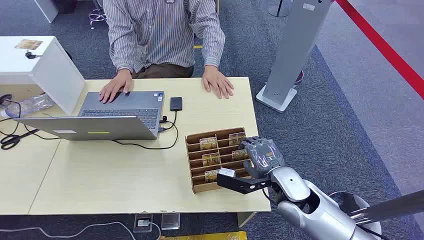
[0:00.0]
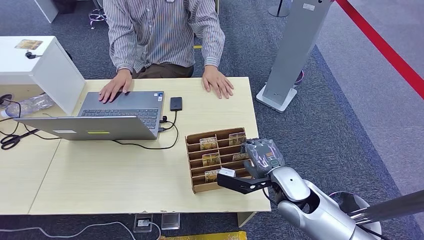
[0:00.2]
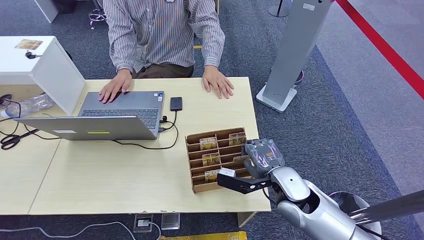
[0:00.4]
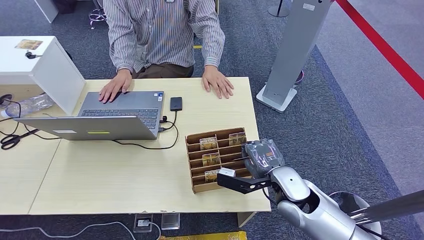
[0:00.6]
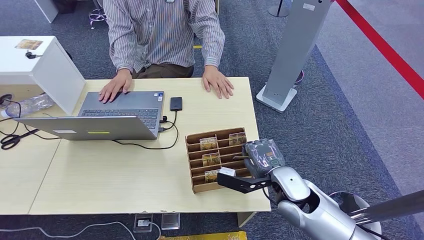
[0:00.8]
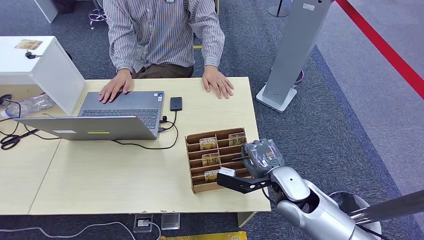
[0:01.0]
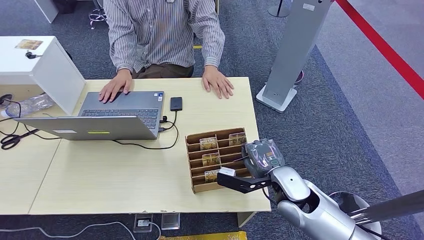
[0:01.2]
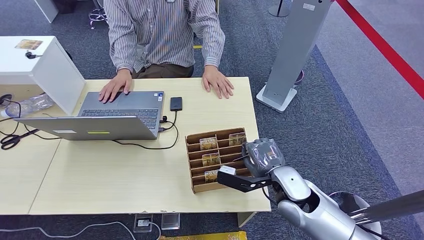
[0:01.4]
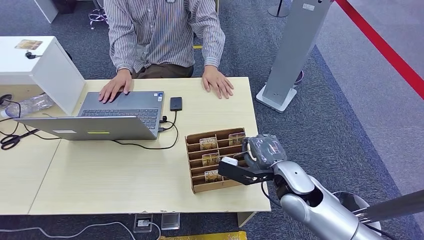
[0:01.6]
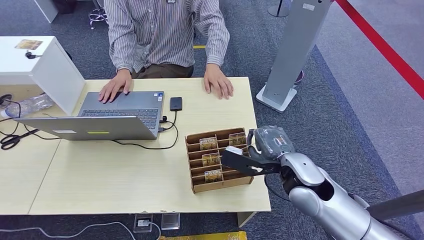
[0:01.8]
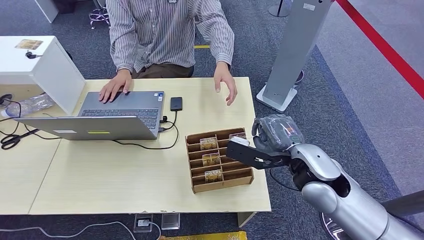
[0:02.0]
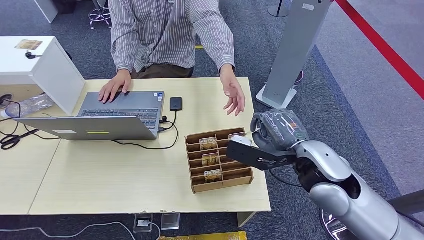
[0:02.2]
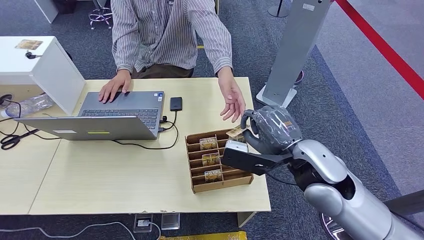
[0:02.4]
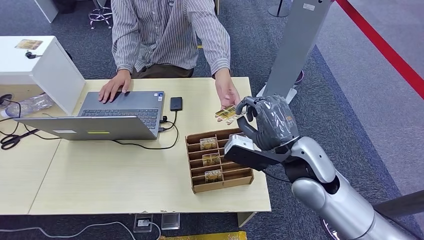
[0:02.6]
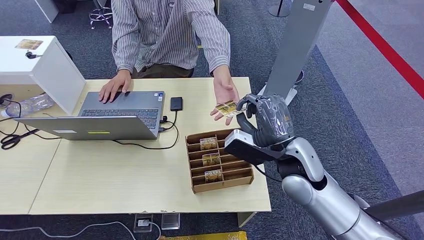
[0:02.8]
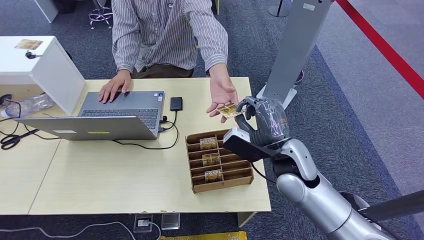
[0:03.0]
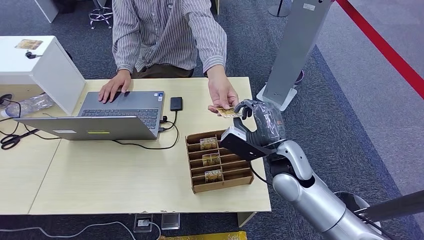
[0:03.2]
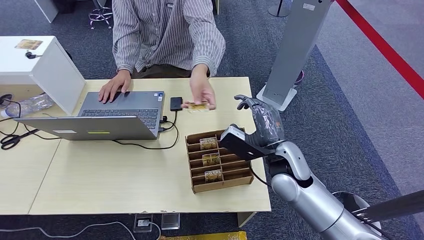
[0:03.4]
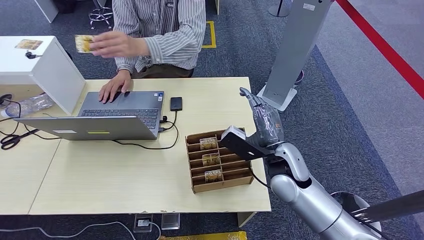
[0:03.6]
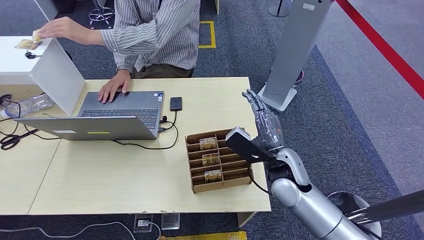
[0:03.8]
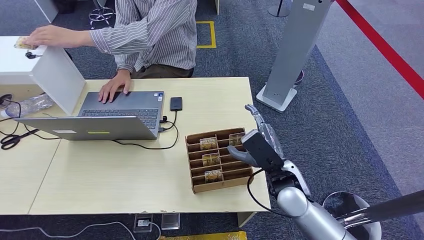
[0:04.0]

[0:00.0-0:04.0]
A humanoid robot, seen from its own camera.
Step, 0:00.0 to 0:02.0: Pick up the key card from the card box.
Step, 0:02.8 to 0:04.0: Hand the key card to the target.
0:01.4 to 0:02.6: The right hand moves upward, approximately 10 cm.
0:02.6 to 0:04.0: The right hand goes some 10 cm downward.

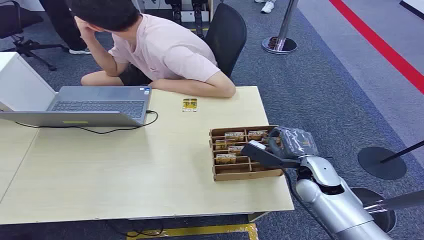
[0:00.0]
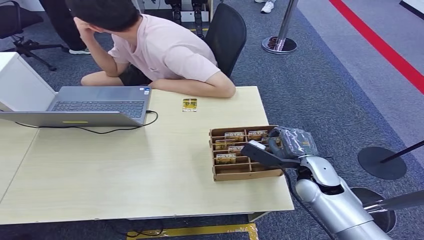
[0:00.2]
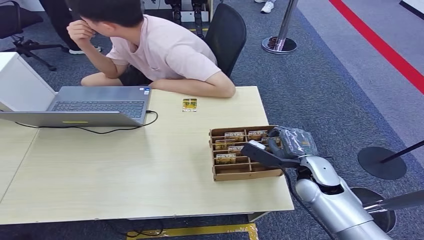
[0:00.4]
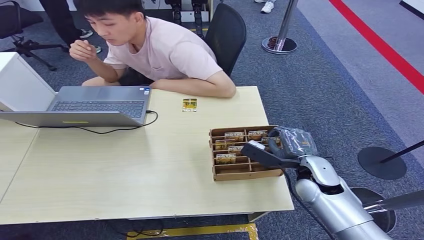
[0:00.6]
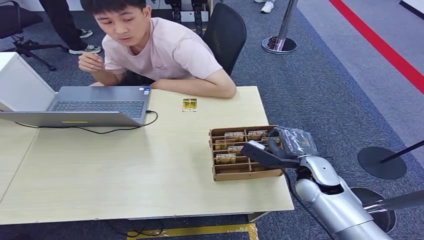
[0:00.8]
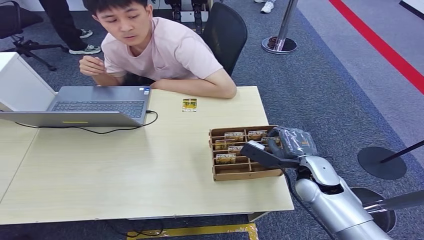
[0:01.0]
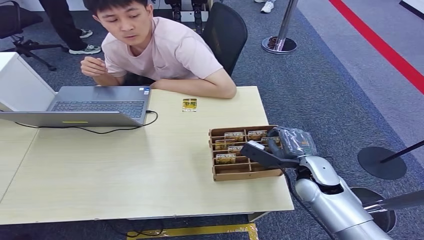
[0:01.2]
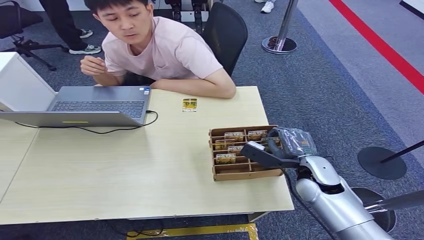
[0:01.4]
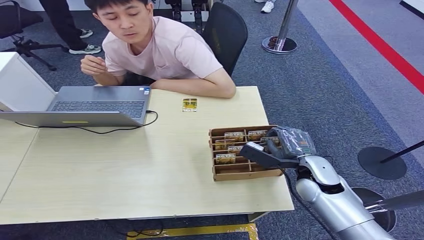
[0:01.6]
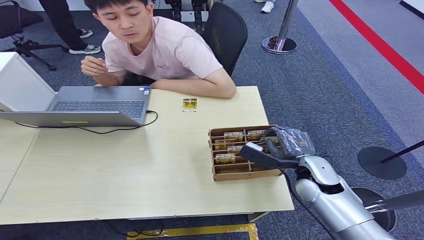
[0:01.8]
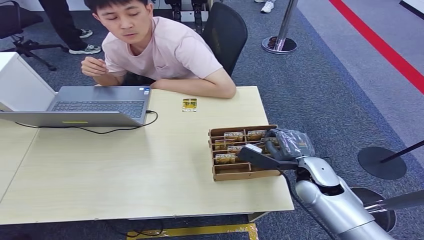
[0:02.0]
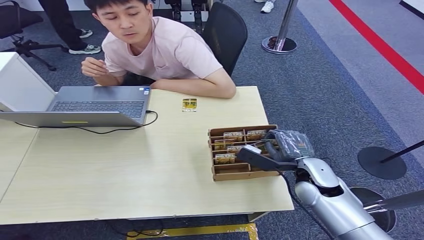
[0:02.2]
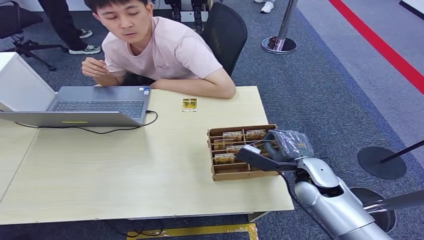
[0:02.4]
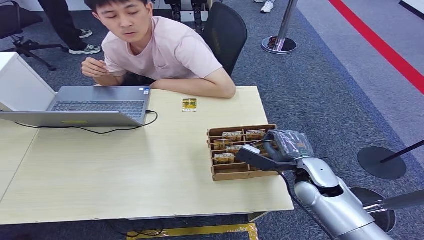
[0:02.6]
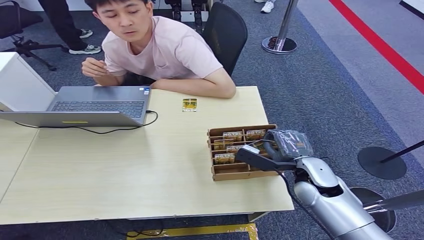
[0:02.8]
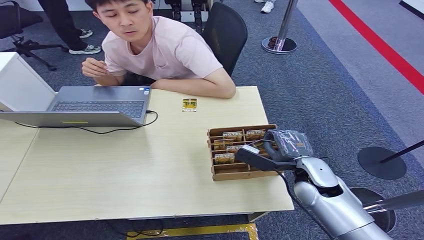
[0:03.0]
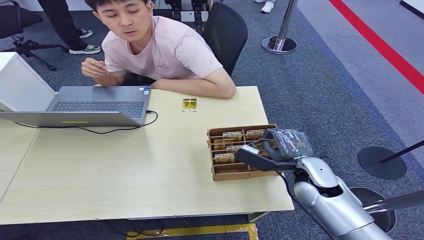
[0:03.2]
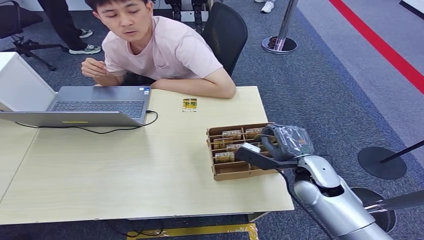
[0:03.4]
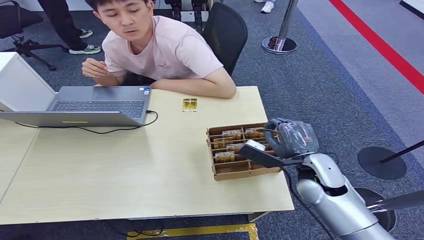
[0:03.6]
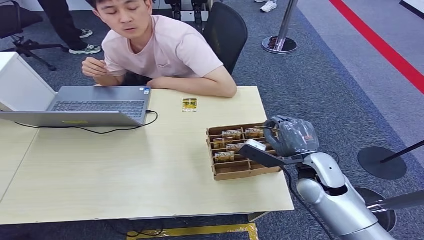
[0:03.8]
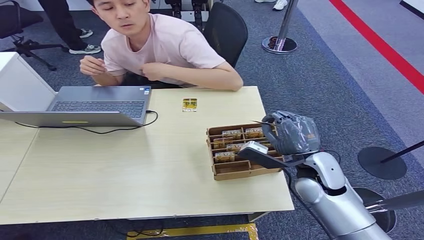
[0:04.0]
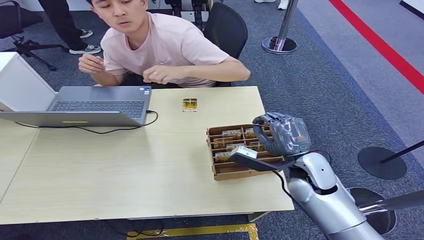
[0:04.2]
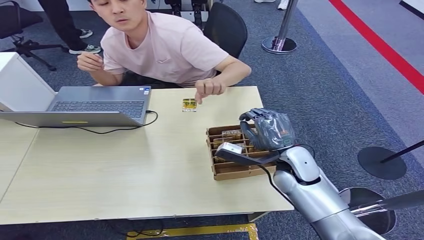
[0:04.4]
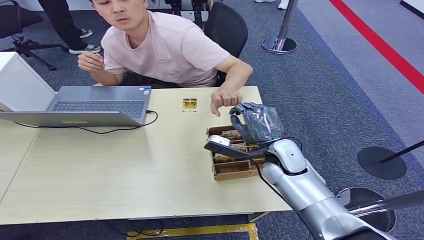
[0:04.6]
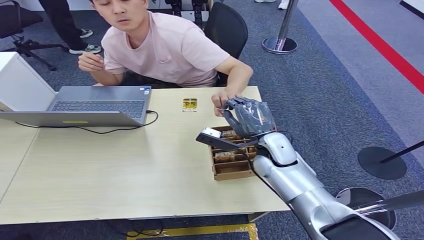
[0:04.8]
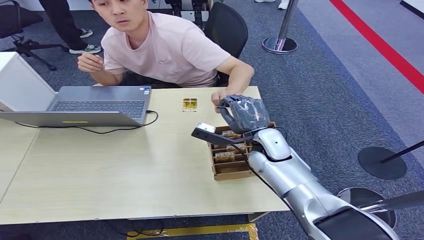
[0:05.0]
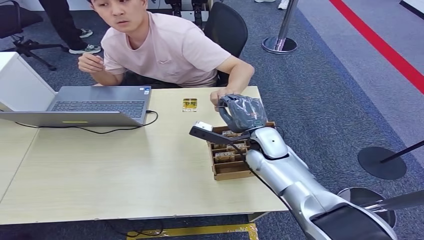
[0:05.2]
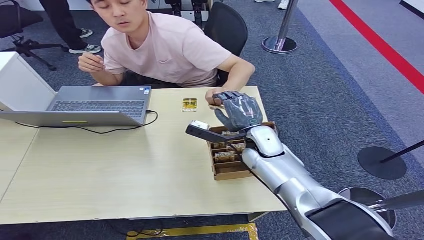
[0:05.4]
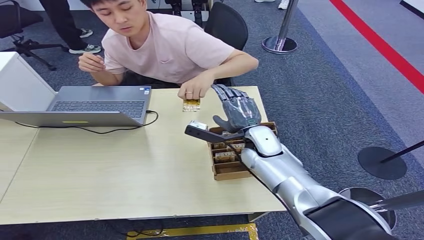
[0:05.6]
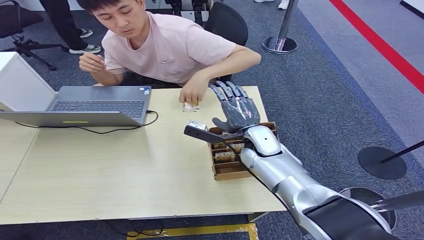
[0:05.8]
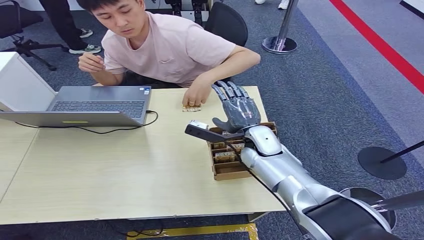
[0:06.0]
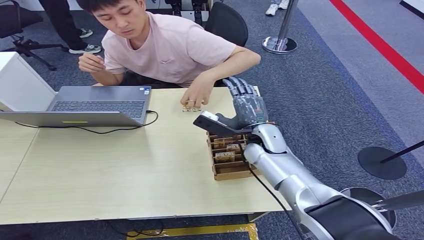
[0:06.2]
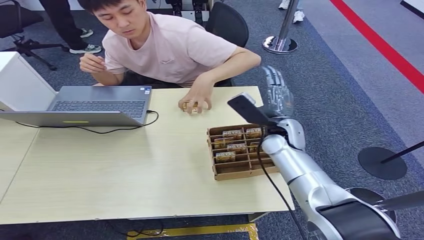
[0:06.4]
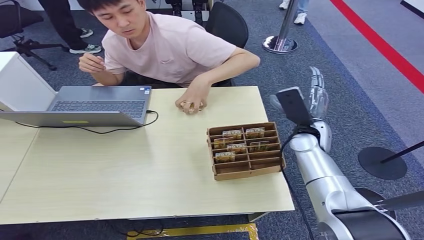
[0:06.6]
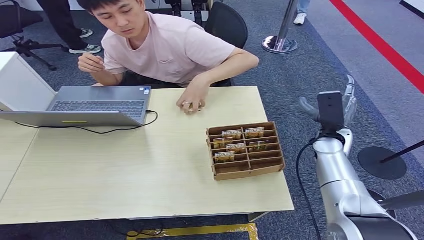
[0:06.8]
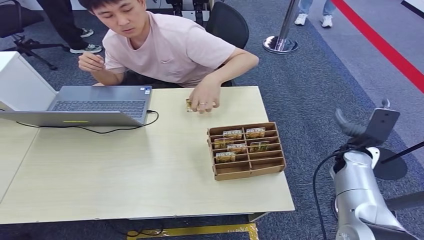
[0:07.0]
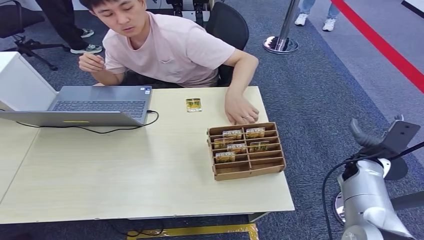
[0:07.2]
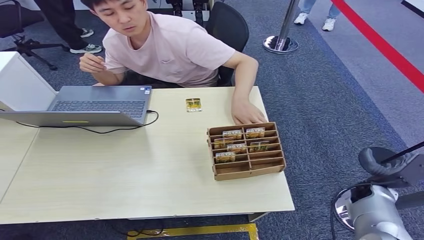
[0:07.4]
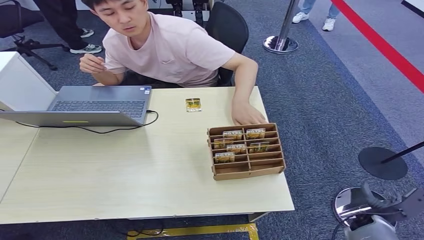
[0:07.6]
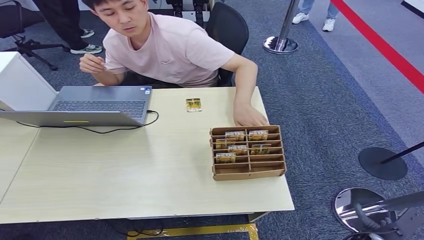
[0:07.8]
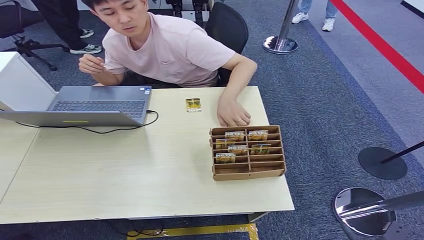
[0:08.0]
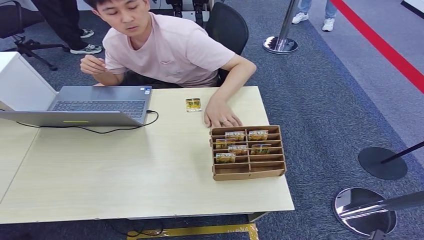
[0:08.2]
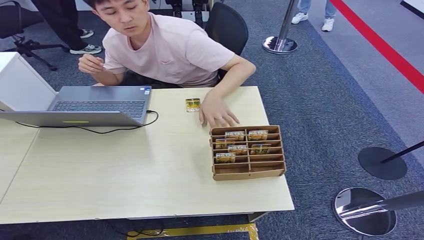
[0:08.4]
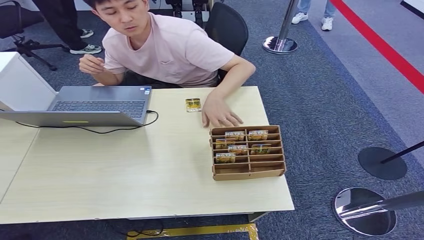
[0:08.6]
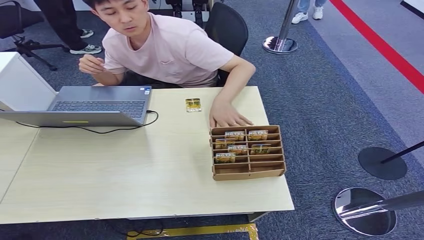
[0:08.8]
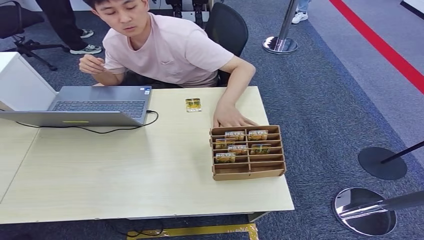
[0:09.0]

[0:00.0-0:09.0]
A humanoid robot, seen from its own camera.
Step, 0:00.0 to 0:03.8: Pick up the key card from the card box.
Step, 0:04.0 to 0:09.0: Hand the key card to the target.
0:01.6 to 0:03.0: Neither hand changes place.
0:03.0 to 0:04.4: The right hand ends up some 5 cm from where it was.
0:04.4 to 0:06.0: The right hand moves forward and to the left, roughly 10 cm.
0:06.0 to 0:07.6: The right hand travels to the right, backward and downward by approximately 40 cm.
0:07.6 to 0:09.0: The right hand travels backward, to the left and downward by about 20 cm.
